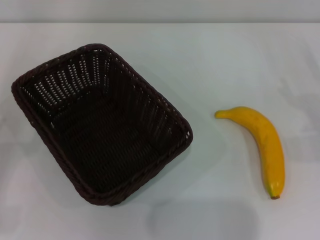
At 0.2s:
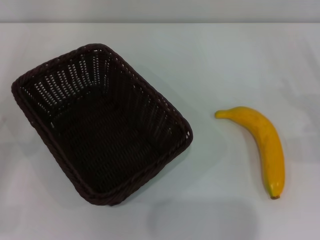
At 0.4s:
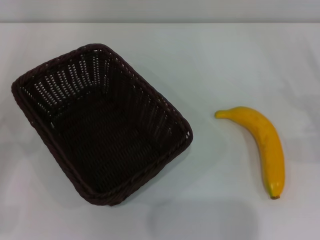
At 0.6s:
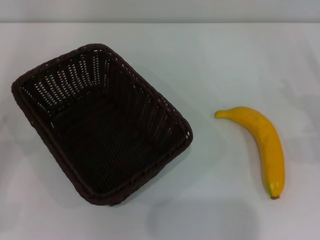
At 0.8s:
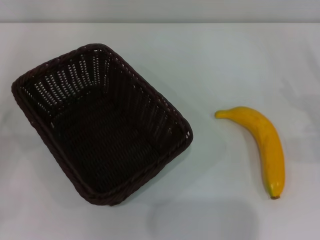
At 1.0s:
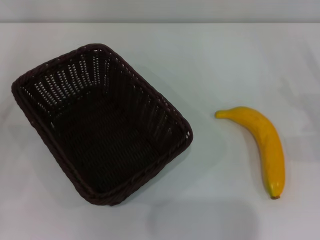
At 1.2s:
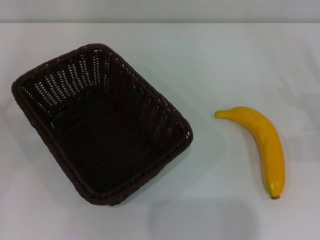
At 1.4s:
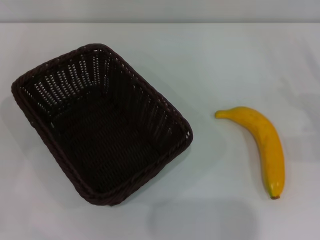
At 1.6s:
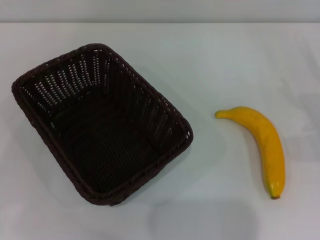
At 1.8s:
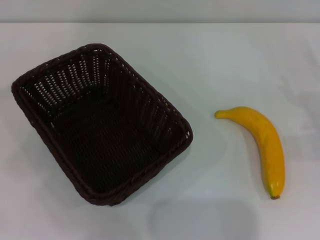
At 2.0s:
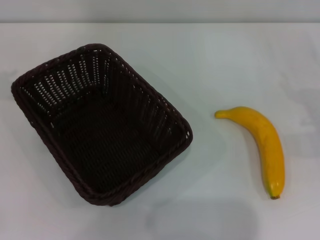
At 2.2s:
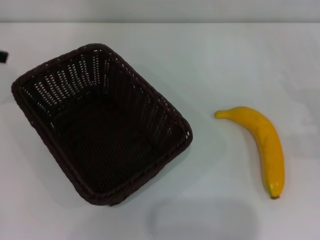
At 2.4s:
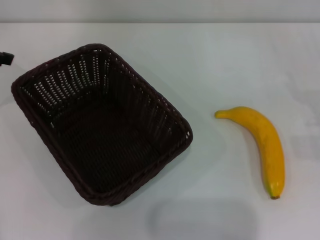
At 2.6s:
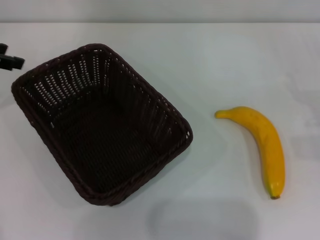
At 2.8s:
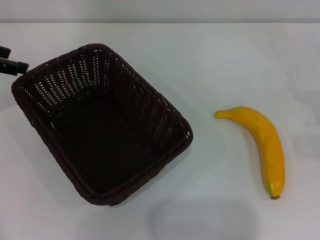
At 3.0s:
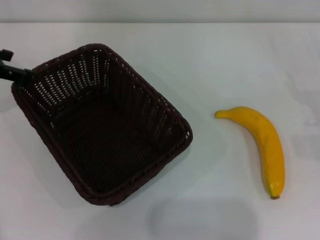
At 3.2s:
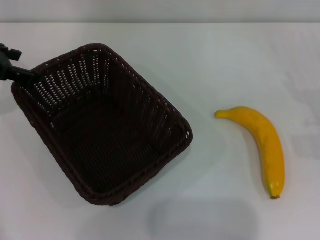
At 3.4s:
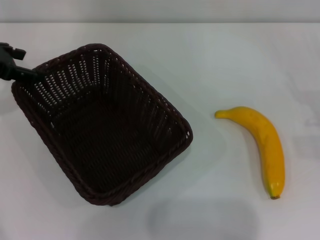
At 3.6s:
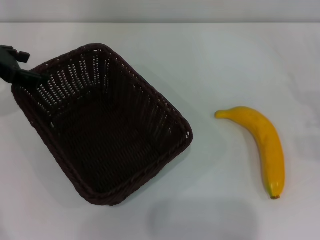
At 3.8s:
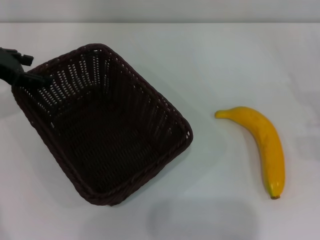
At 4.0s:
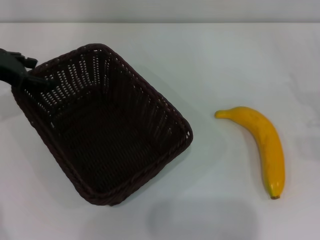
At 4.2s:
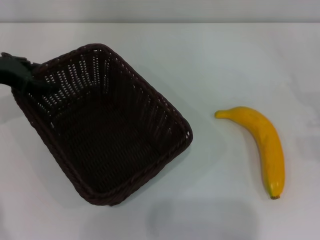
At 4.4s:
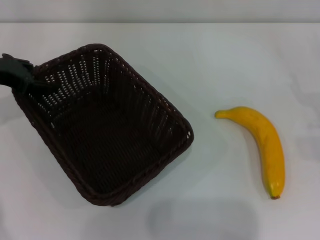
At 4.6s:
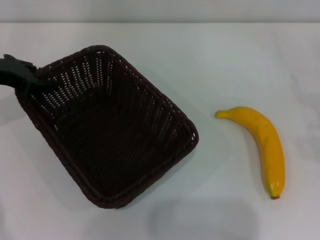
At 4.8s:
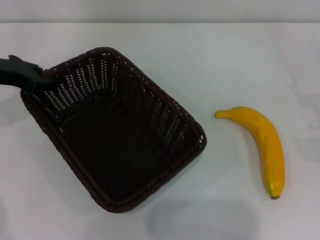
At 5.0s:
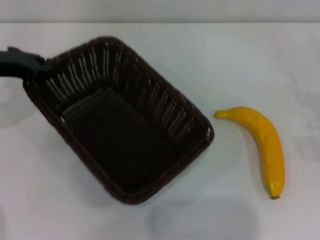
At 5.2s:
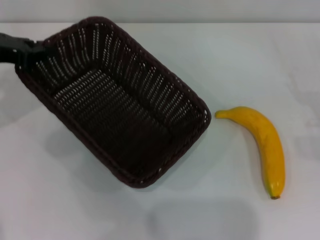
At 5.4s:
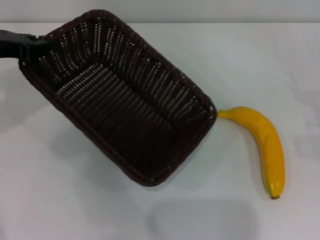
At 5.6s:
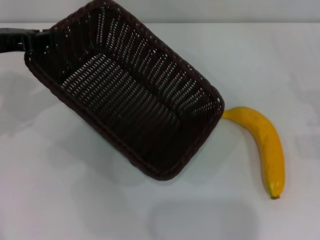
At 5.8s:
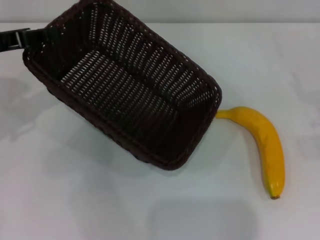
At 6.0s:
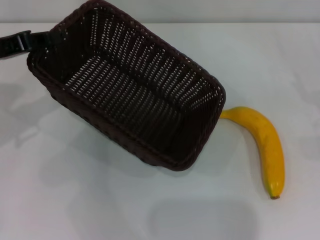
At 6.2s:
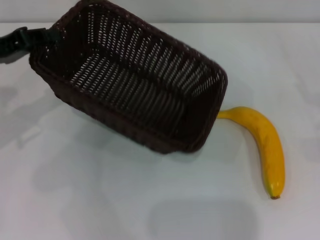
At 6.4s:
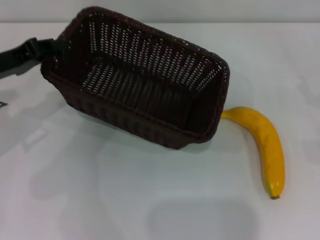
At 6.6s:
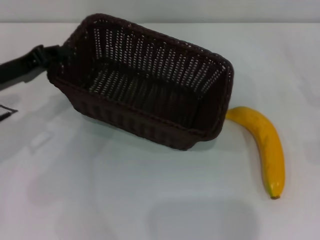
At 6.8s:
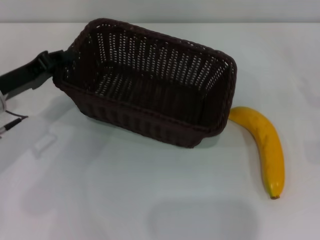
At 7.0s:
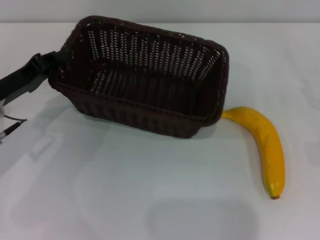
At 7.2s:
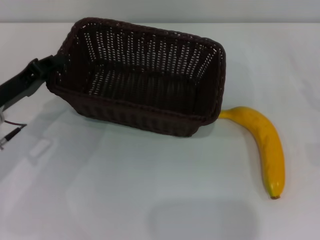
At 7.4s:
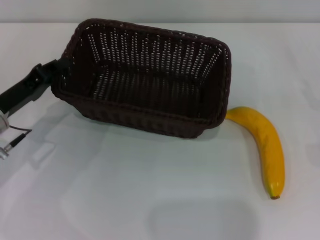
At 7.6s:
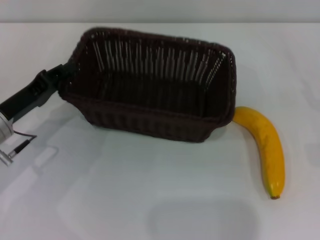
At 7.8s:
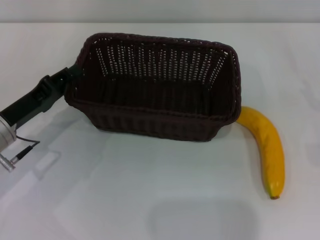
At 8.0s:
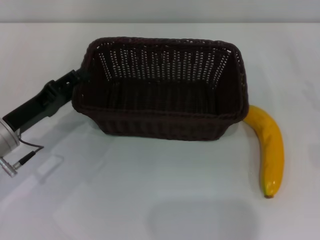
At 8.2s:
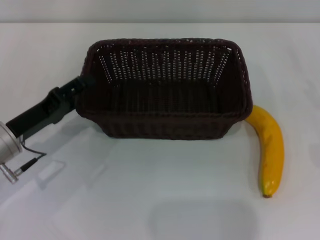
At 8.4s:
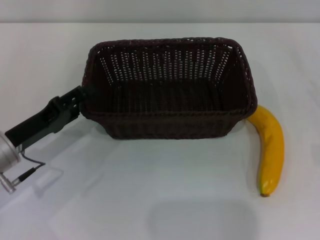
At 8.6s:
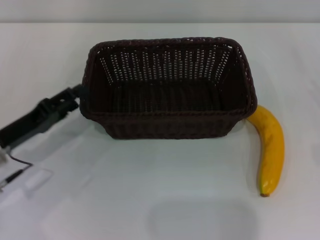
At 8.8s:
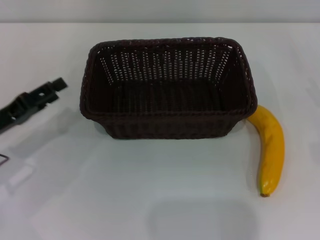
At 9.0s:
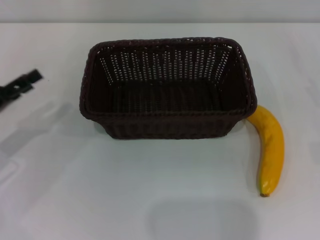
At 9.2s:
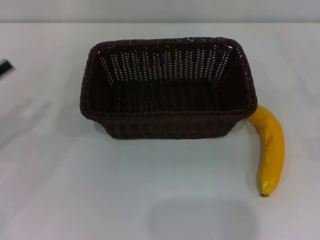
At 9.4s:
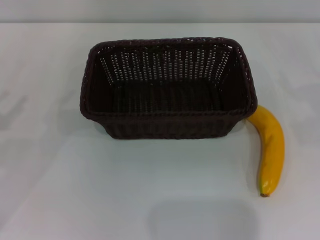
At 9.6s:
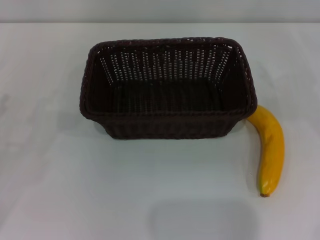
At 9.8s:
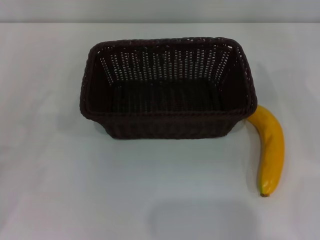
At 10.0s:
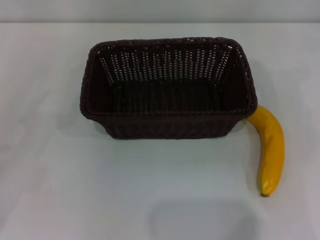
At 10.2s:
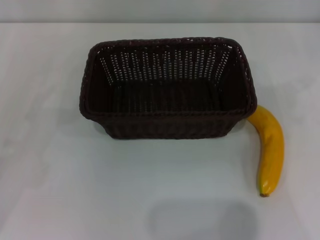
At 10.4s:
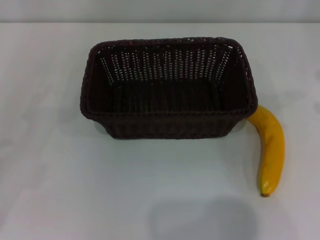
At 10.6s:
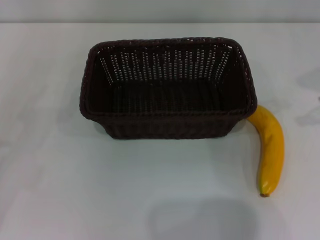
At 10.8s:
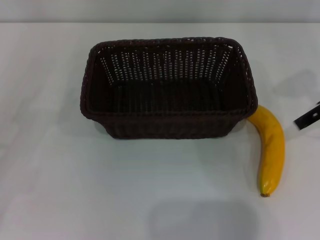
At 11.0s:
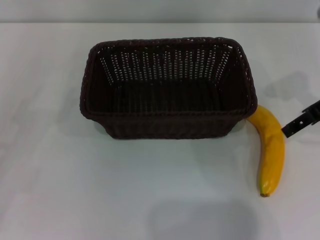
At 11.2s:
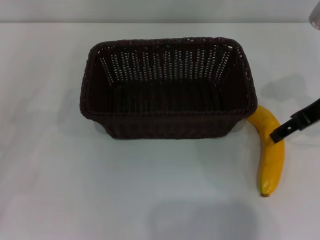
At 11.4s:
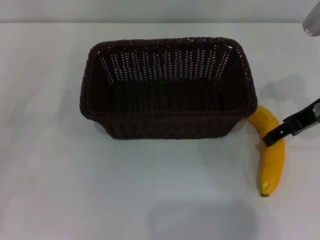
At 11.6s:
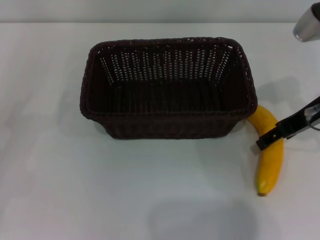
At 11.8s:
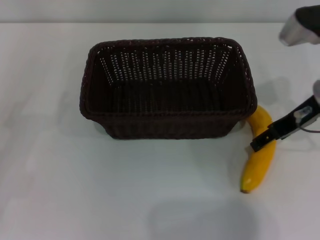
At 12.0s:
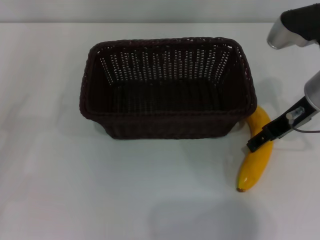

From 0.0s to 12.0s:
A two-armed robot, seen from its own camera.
Step, from 0.0s to 6.2s: Pick up the dark basket with the left gripper.
Step, from 6.4s to 9.0s: Place the dark basket in the center of view with the left gripper.
From 1.6s to 3.0s: The left gripper travels to the right and forward by about 15 cm.
From 3.0s to 4.4s: The grippers move only a little.
From 4.4s to 6.0s: The left gripper travels backward by roughly 5 cm, and closes up.
From 6.0s to 7.6s: The left gripper heads downward, covering roughly 10 cm.
From 7.6s to 9.0s: The left gripper travels to the left by some 5 cm, and opens.
From 9.0s to 10.4s: The left gripper is displaced to the left by roughly 10 cm.
From 10.4s to 12.0s: The right gripper is displaced to the left and downward by about 15 cm.

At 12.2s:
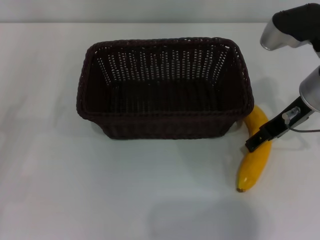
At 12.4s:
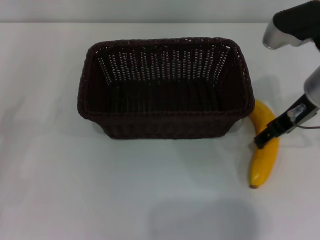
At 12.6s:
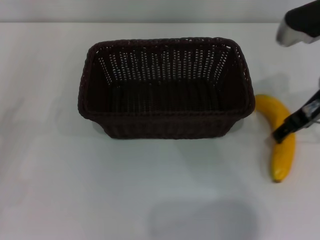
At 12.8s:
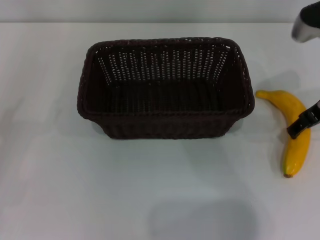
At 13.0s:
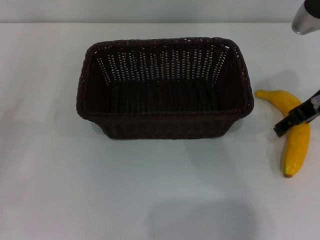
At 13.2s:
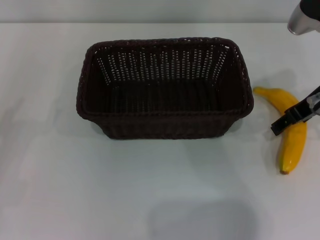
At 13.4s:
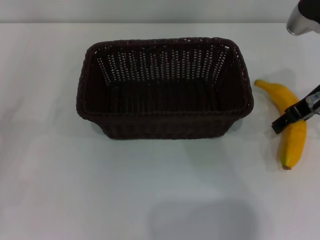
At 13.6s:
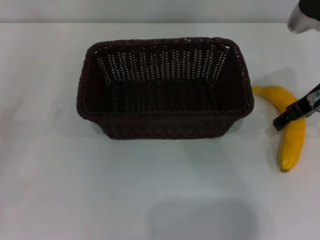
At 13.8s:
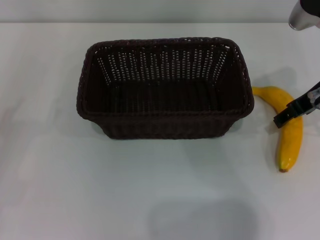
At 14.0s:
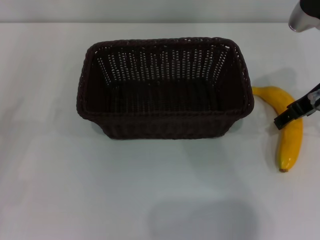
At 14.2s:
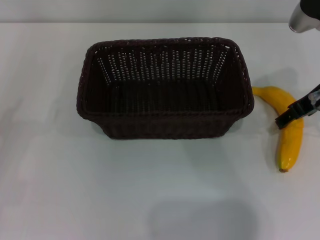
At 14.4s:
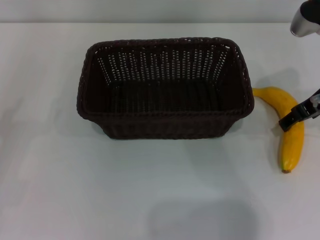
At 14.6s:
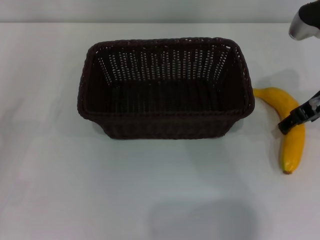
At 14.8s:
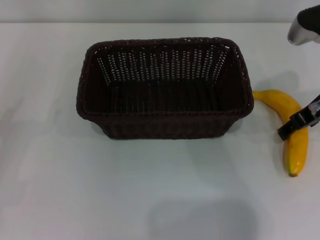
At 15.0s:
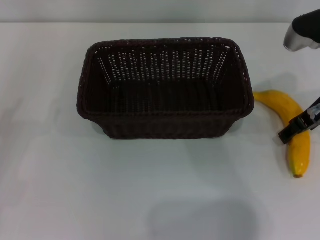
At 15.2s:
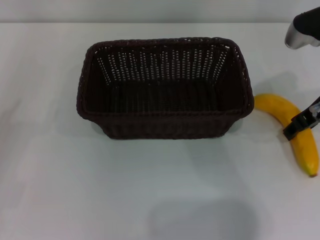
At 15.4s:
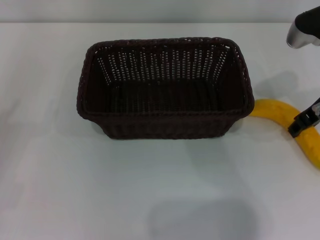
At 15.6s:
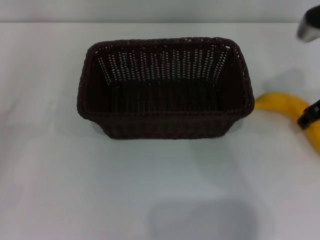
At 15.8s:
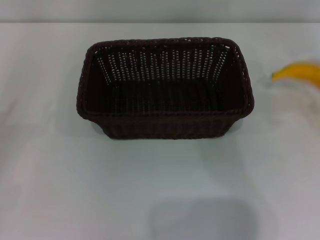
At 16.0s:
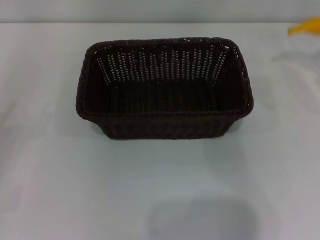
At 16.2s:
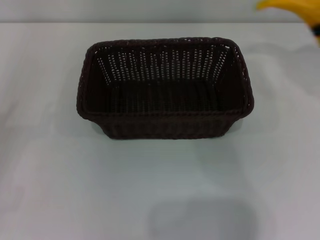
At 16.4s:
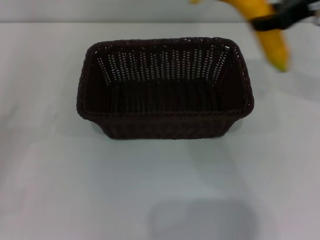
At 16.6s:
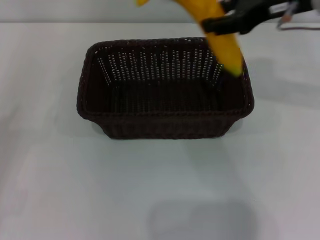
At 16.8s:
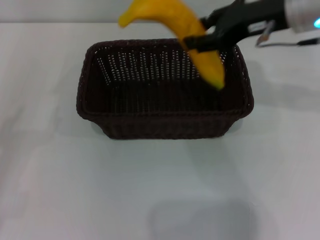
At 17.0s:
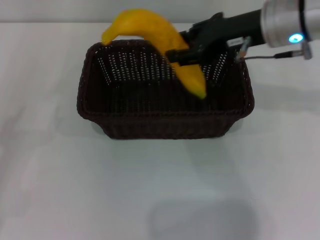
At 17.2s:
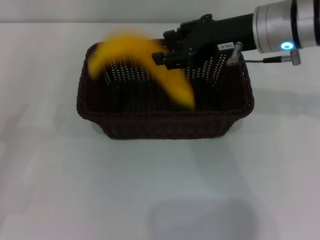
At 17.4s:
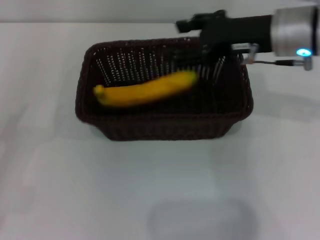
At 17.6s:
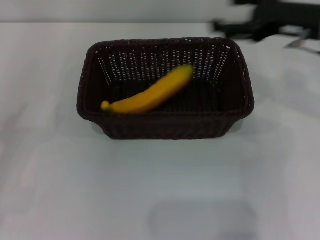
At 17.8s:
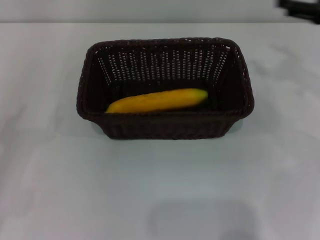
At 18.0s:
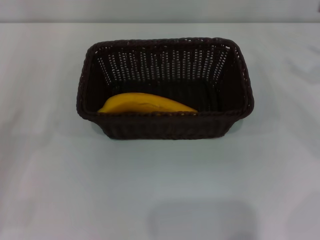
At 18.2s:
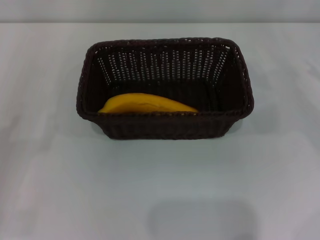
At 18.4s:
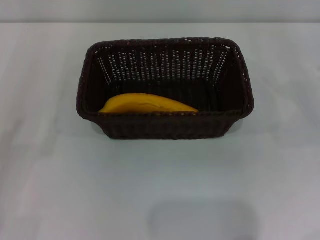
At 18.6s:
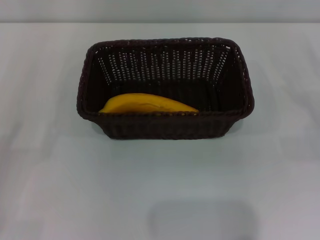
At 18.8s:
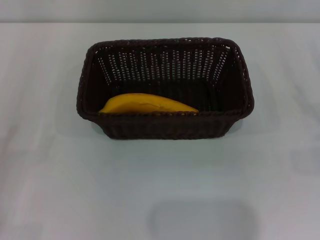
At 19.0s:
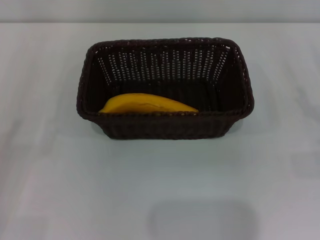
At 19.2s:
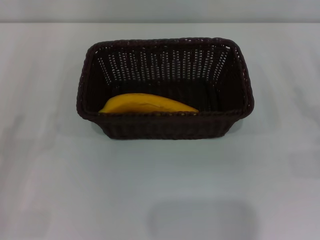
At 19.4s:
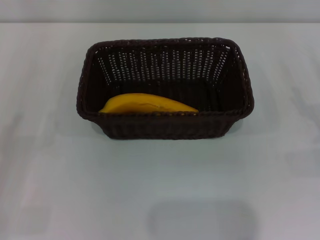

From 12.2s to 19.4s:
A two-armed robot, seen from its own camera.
Step, from 12.2s to 15.8s: Pick up the banana with the right gripper.
Step, from 16.0s to 17.4s: Place the banana into the dark basket with the right gripper.
From 12.2s to 15.0s: The grippers move only a little.
From 15.0s to 16.6s: The right gripper travels upward by roughly 10 cm, reaches roughly 10 cm to the right, then returns, and closes up.
From 16.6s to 18.0s: The right gripper travels to the right and downward by about 20 cm, and opens.

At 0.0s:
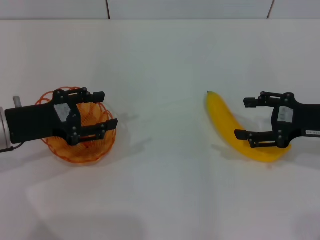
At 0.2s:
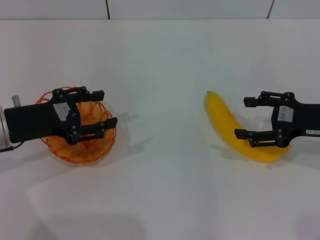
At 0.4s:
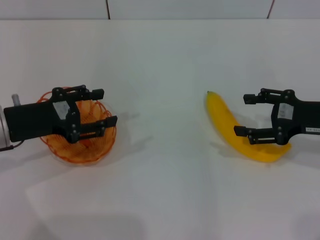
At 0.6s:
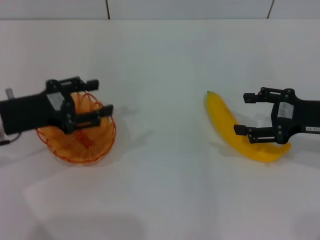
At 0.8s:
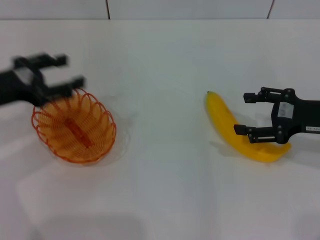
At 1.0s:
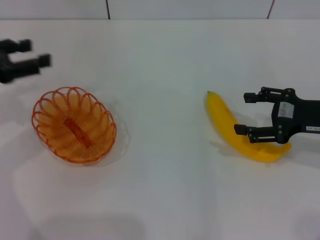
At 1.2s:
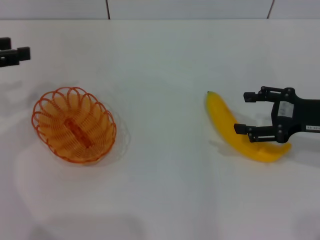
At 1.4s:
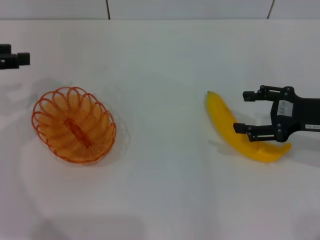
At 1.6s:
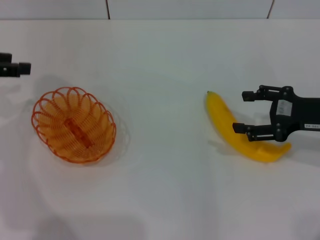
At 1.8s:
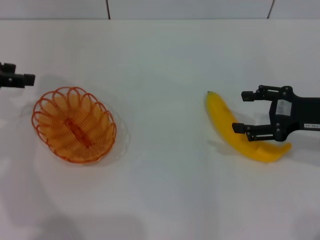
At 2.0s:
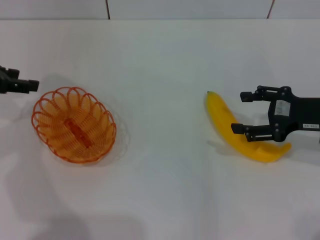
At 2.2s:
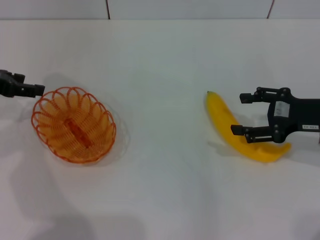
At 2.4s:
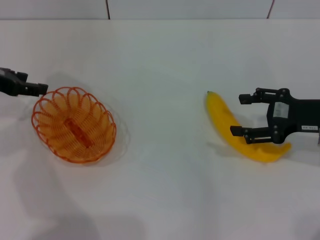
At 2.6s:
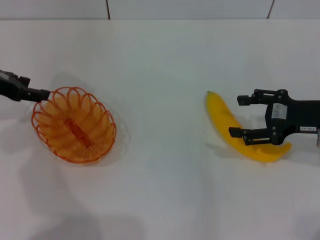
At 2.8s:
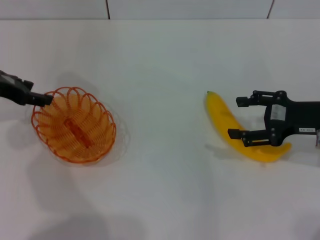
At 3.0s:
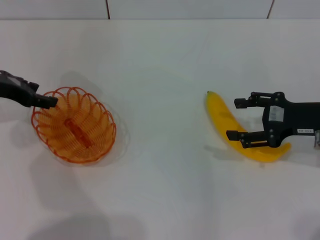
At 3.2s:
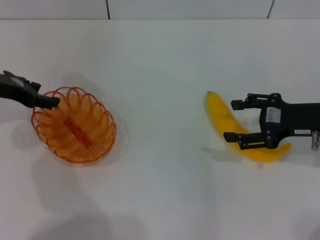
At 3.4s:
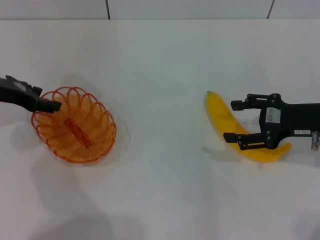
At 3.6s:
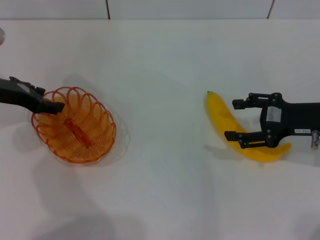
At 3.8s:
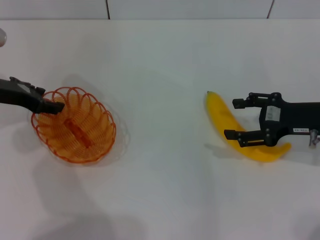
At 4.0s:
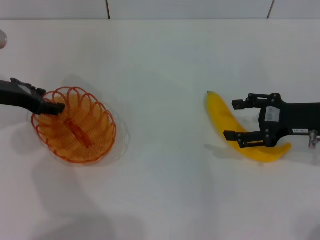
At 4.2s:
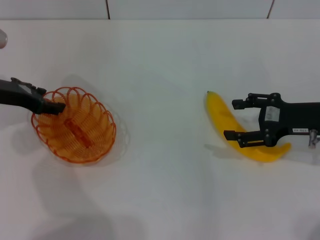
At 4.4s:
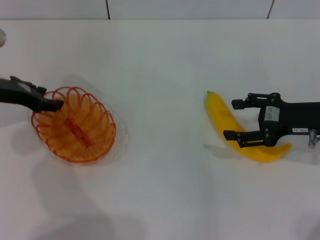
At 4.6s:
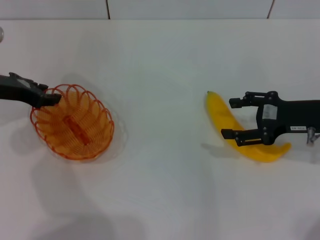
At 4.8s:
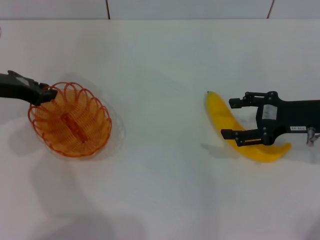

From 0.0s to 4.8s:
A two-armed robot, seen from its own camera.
From 0.0s to 1.6s: The left gripper is displaced upward and to the left by some 15 cm.
From 1.6s to 3.2s: The left gripper travels to the right by approximately 5 cm.
From 3.2s to 4.8s: The grippers move only a little.
